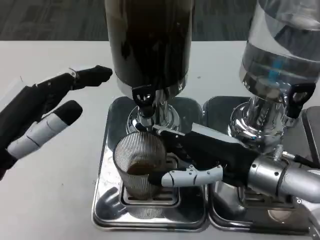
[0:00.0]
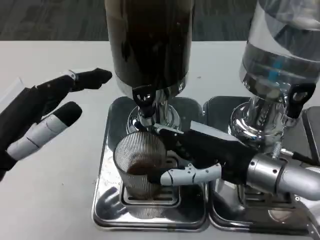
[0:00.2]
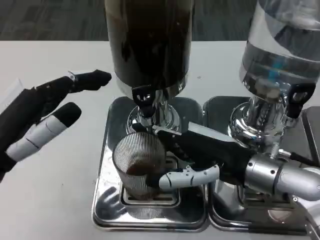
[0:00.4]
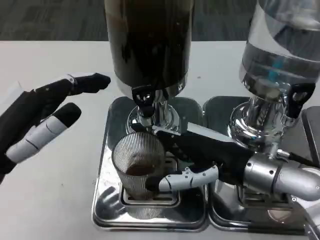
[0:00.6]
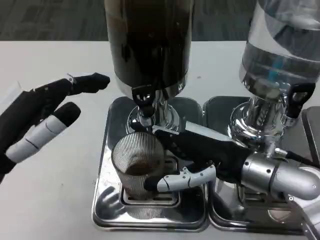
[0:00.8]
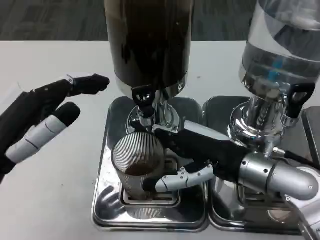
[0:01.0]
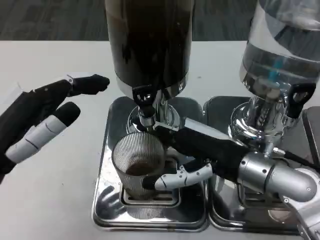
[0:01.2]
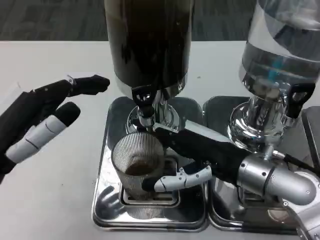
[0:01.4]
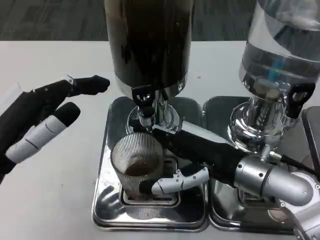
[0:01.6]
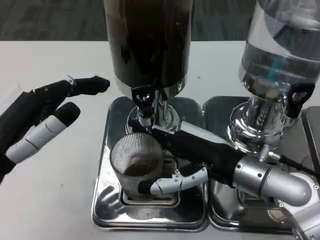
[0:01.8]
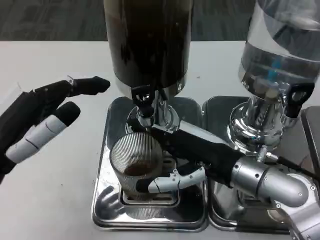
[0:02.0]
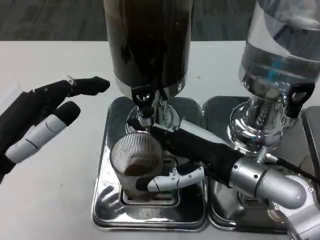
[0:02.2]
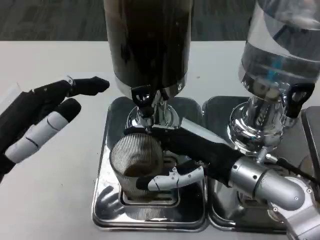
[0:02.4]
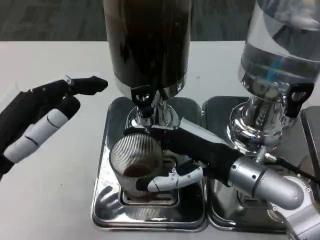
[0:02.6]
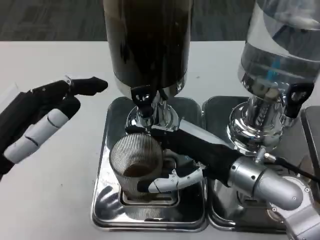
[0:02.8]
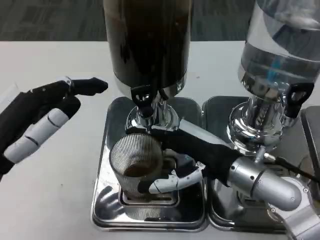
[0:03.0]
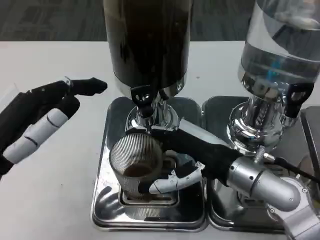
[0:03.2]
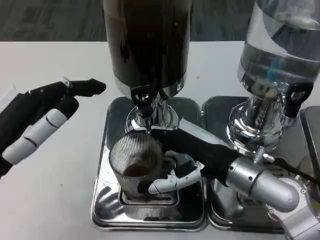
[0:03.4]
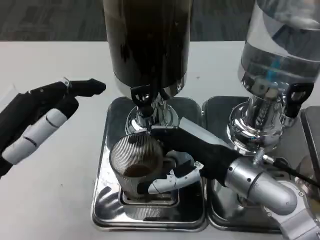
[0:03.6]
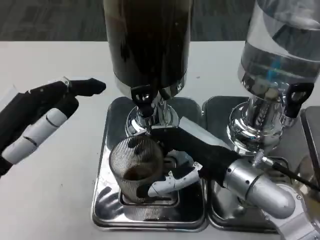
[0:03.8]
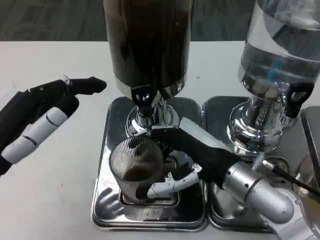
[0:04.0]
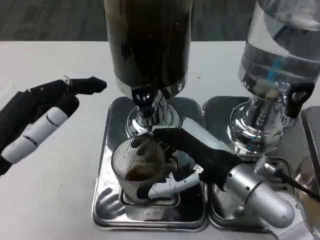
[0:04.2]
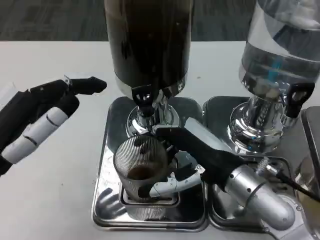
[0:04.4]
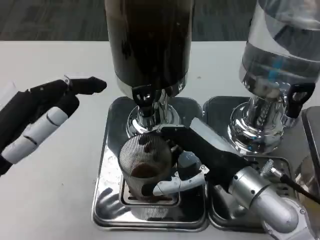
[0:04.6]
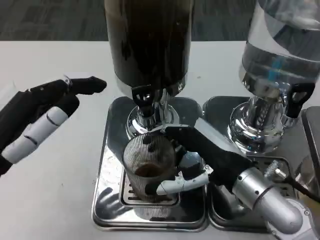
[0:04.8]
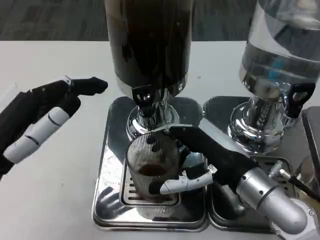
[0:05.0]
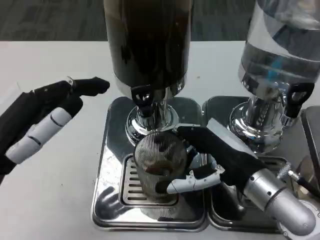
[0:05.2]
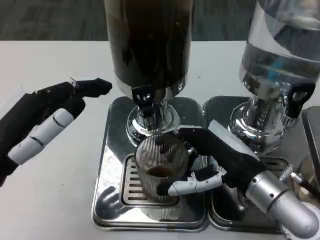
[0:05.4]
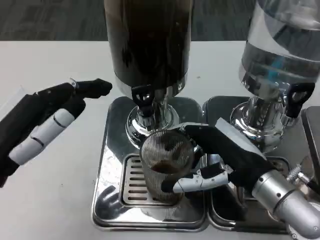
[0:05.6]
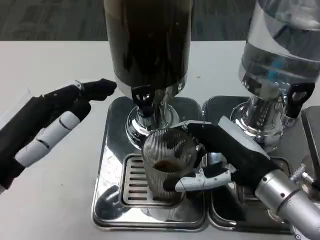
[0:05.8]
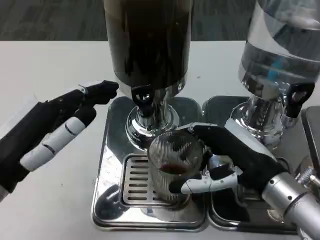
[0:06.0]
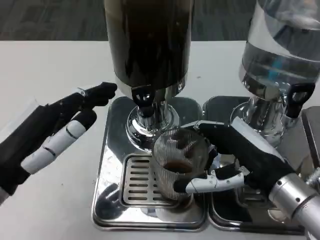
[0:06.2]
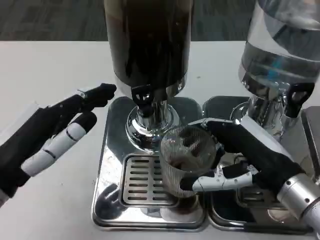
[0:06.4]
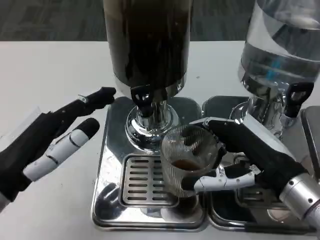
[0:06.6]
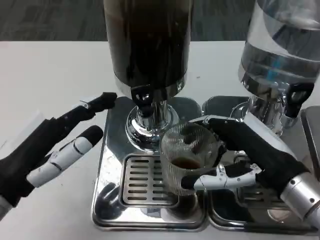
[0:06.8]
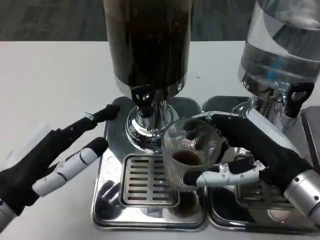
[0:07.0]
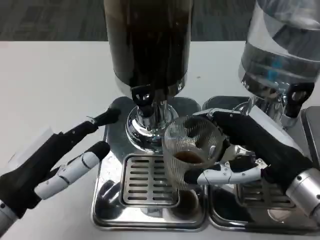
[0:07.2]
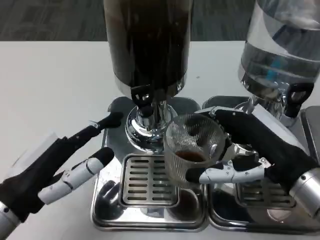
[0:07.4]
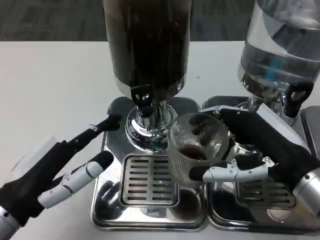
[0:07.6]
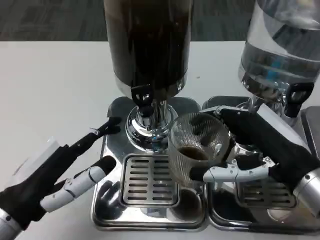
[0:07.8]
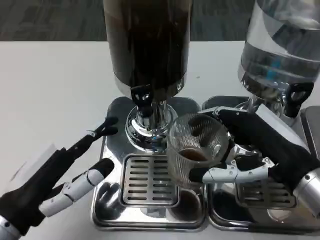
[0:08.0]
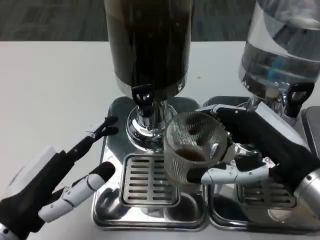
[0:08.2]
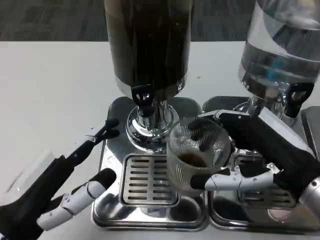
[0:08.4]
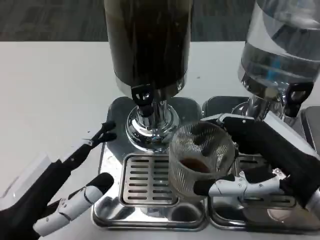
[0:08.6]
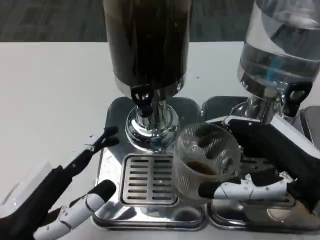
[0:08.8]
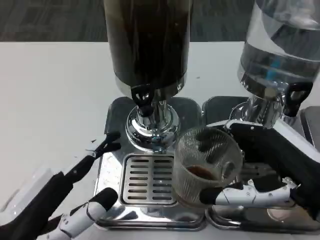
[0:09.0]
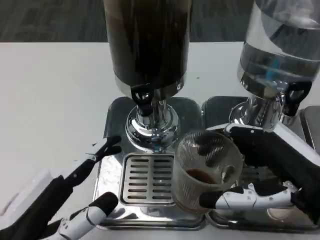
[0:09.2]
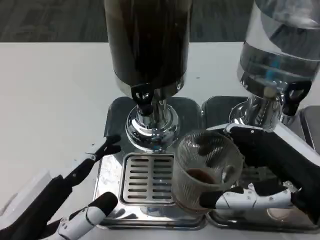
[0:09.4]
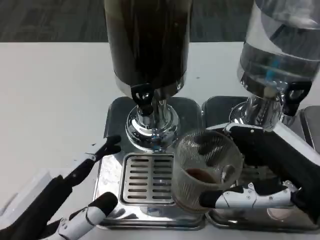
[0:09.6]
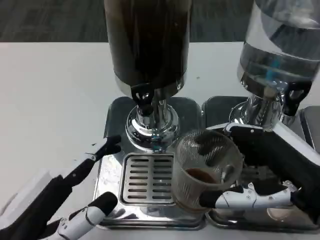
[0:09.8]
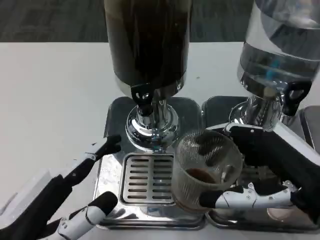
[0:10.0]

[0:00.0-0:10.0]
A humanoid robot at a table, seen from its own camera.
Task of the whole recording: Grasp the cup under the faucet to collect the drink, then remove the cup.
0:00.0 to 0:02.8: The hands move only a little.
0:02.8 to 0:04.2: The hands move only a little.
